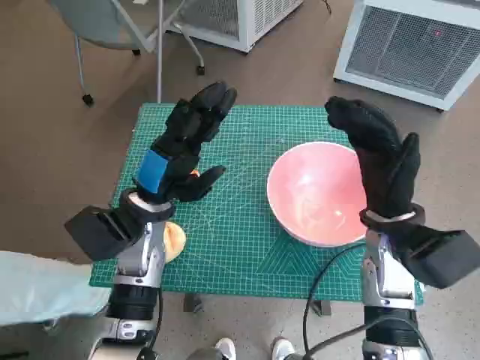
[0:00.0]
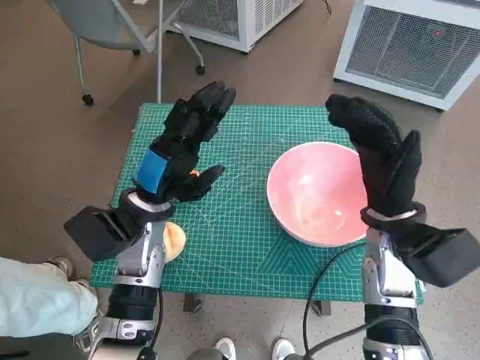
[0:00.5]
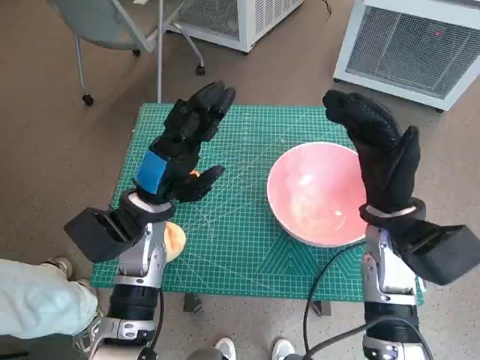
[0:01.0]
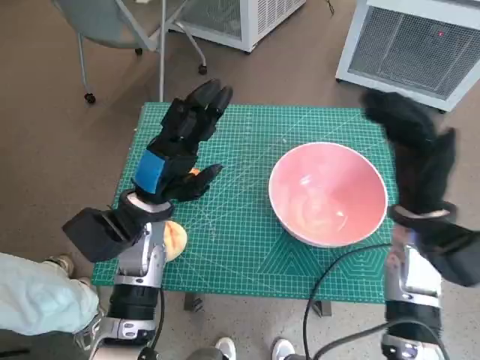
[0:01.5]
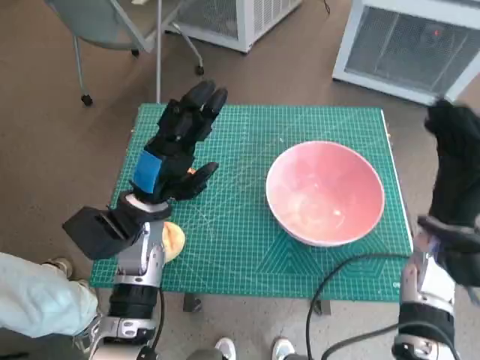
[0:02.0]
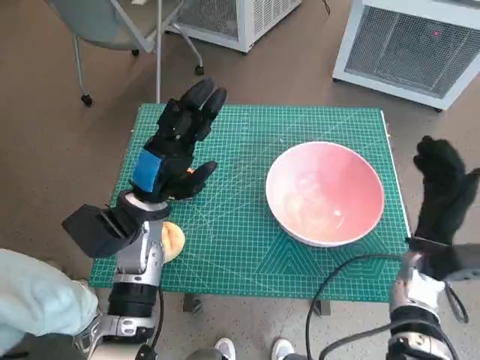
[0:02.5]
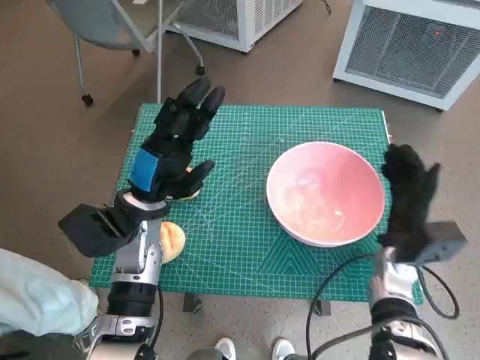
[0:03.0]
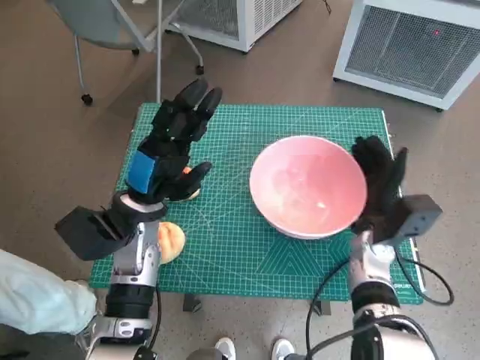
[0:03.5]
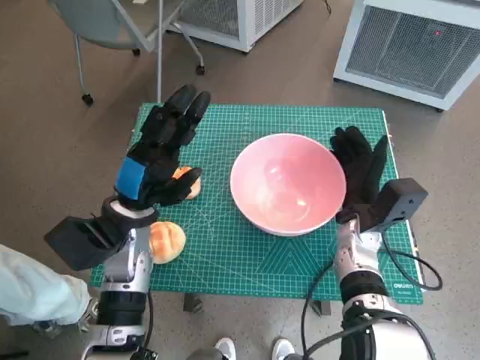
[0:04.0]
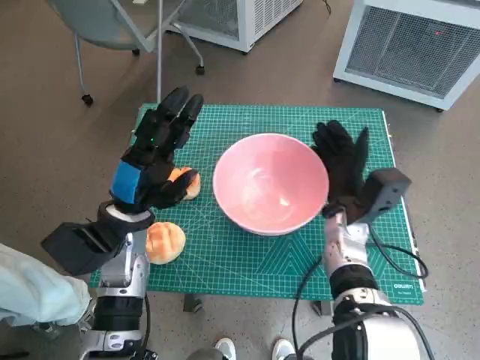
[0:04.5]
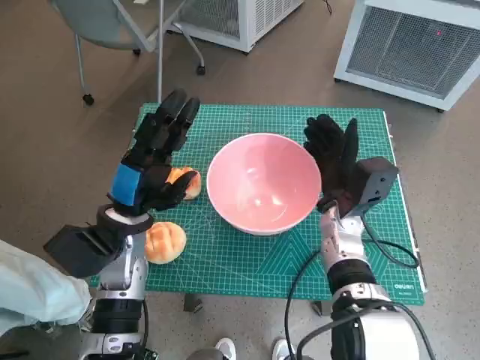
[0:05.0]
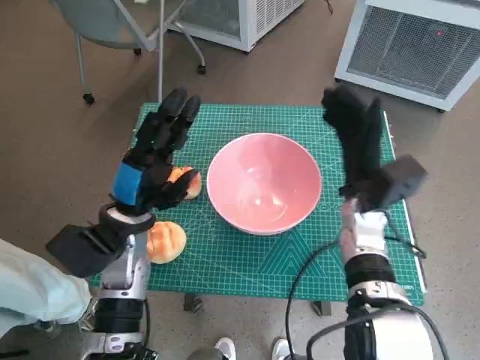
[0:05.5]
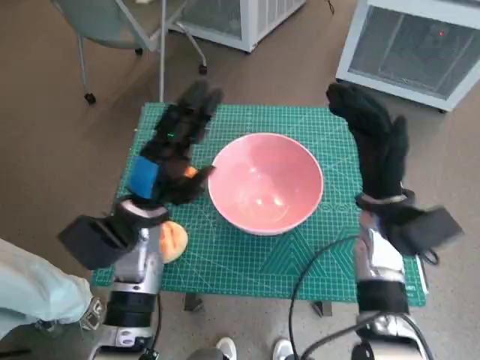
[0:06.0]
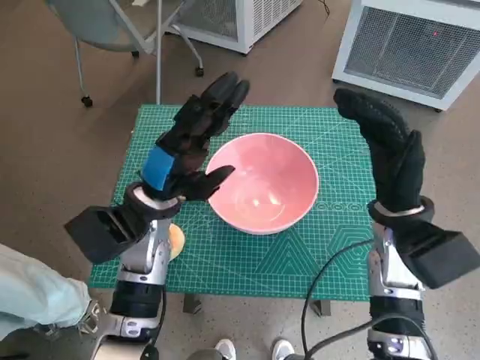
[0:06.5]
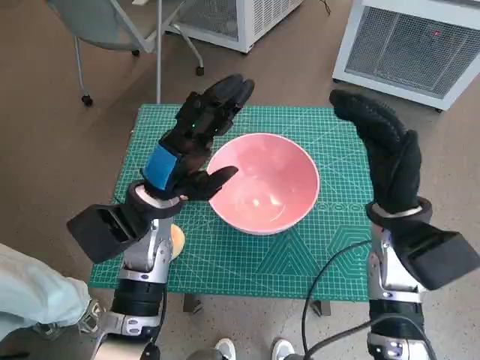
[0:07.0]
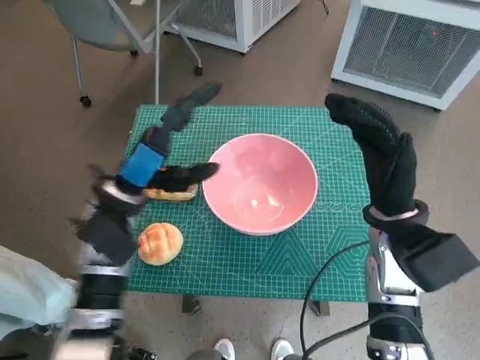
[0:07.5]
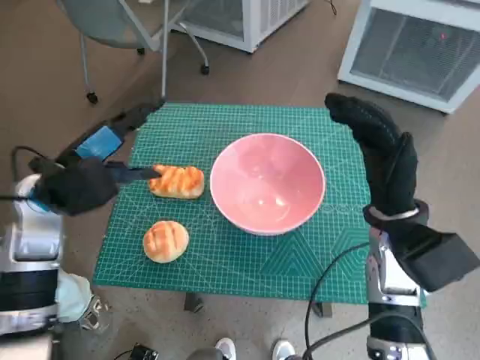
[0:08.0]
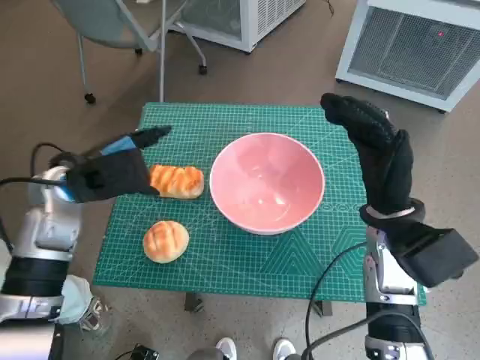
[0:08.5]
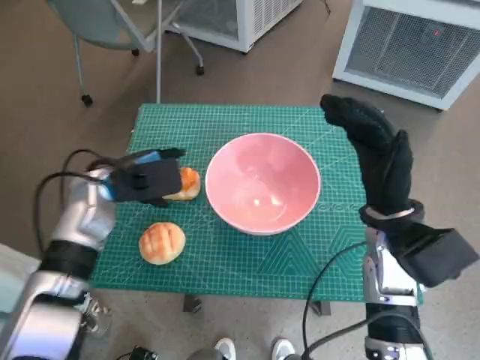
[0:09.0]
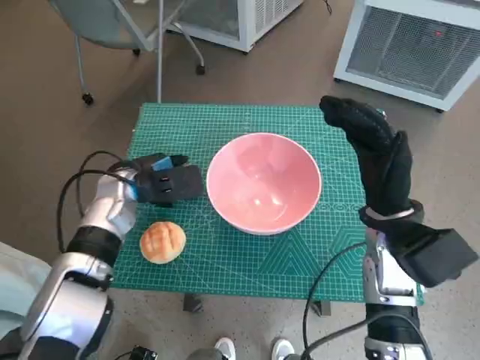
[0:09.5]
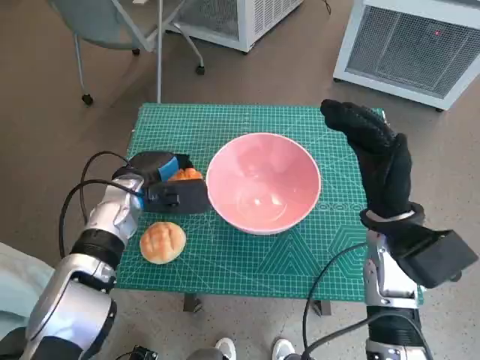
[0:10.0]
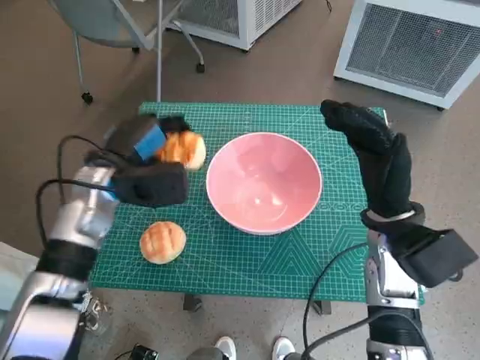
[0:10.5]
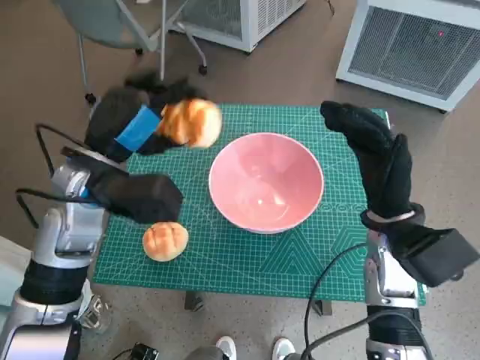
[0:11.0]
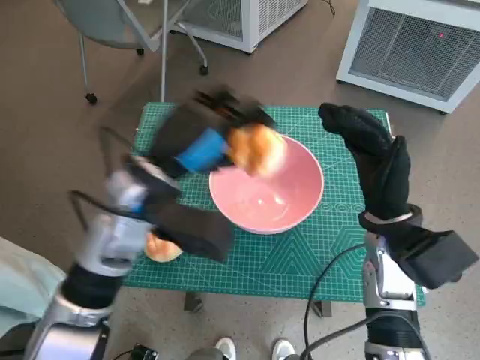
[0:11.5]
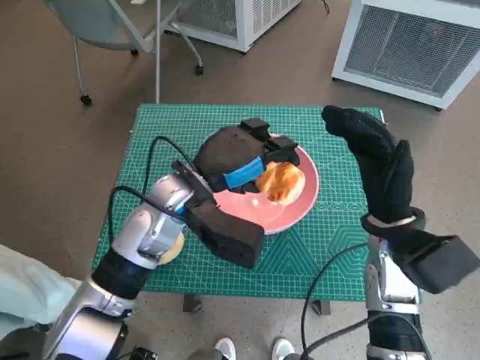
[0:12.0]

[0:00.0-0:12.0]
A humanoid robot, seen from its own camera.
Task of the whole recording: Push the bowl into the center of the table and put the bread into the bowl.
Step, 0:00.0 to 0:05.0: Move the pink bowl to the center of table with right hand.
Step, 0:05.5 to 0:09.5: Grasp the long bread with left hand.
0:02.0 to 0:04.0: The right hand is displaced to the left and downward by roughly 10 cm.
0:04.0 to 0:06.0: The right hand shifts roughly 5 cm upward.
0:06.0 to 0:08.0: The left hand heads to the left and upward, covering about 10 cm.
0:08.0 to 0:10.0: The left hand is displaced downward, to the right and forward by roughly 10 cm.
0:10.0 to 0:12.0: The left hand heads to the right and upward, covering roughly 10 cm.

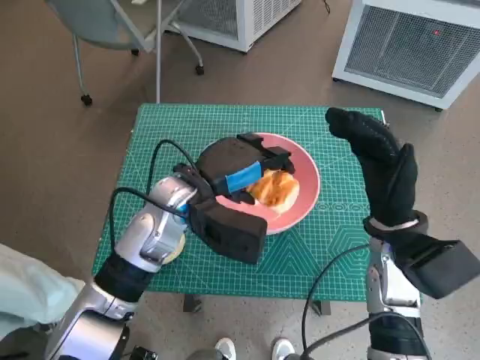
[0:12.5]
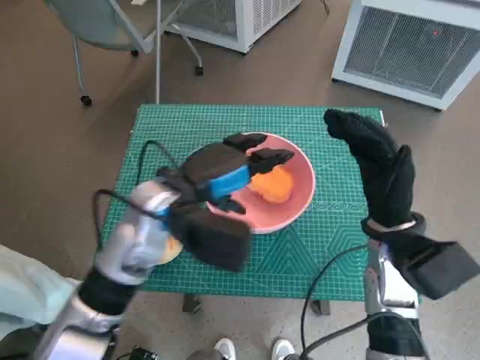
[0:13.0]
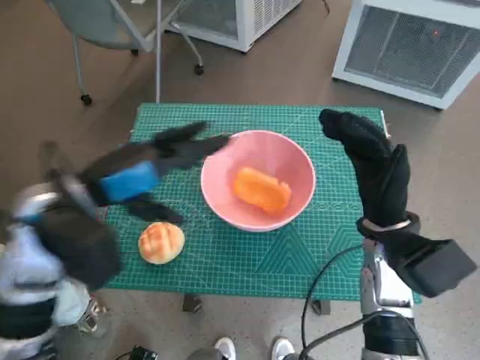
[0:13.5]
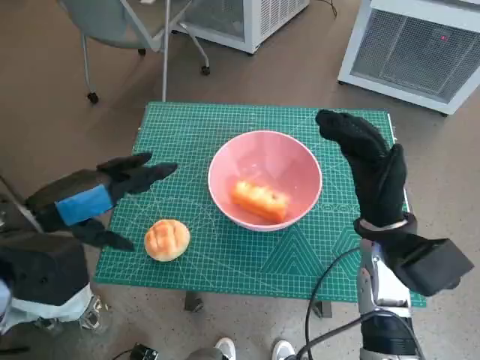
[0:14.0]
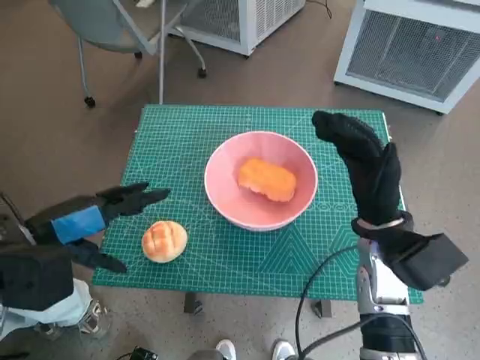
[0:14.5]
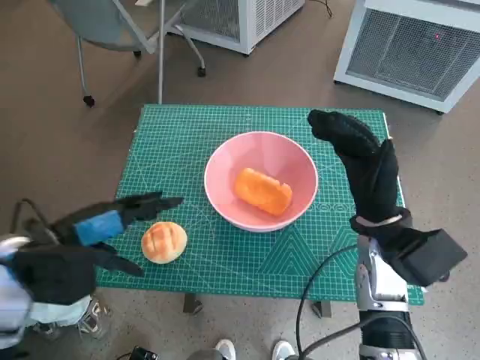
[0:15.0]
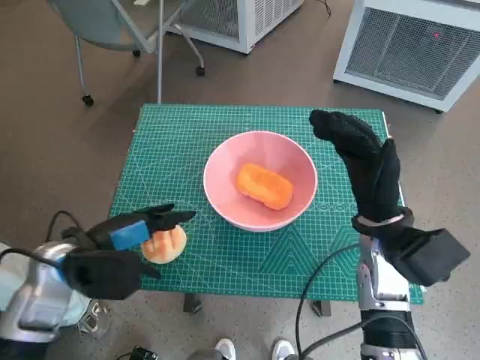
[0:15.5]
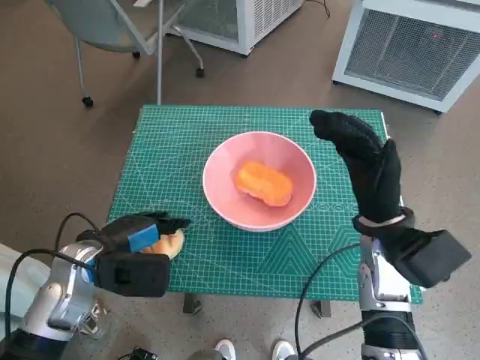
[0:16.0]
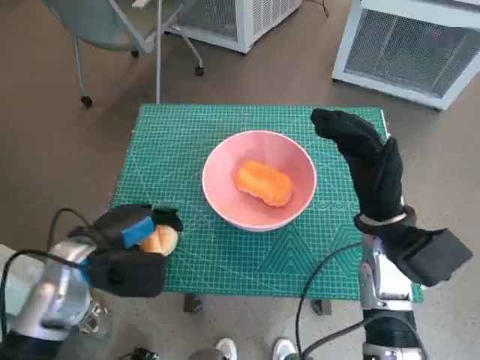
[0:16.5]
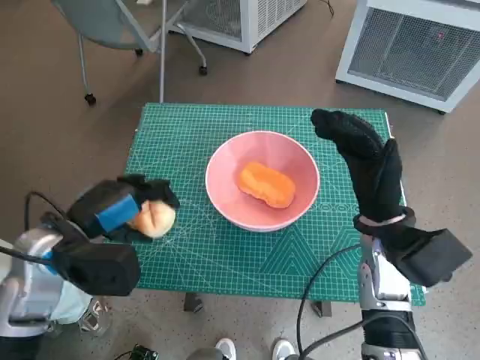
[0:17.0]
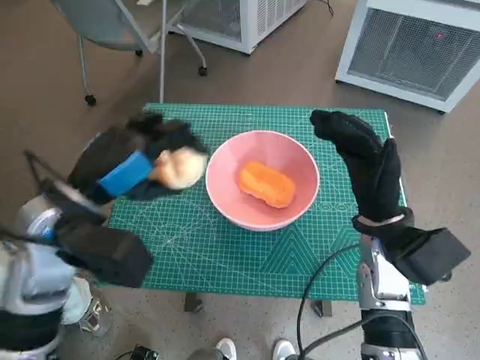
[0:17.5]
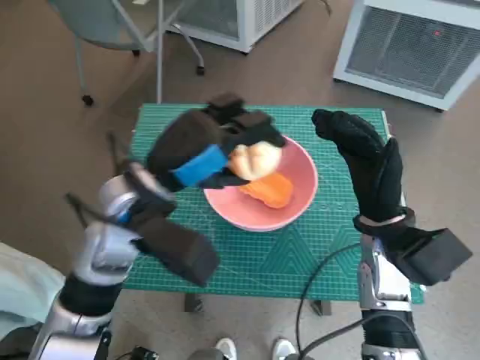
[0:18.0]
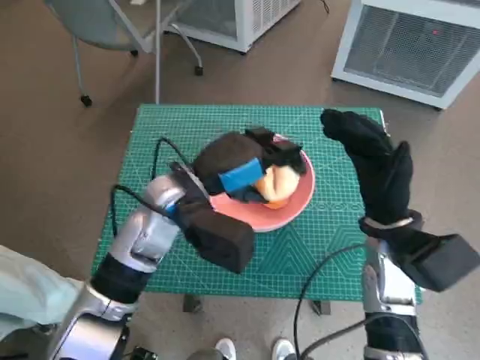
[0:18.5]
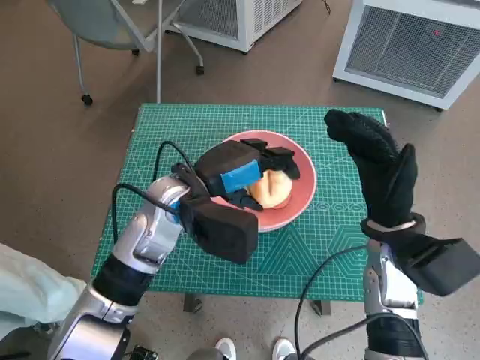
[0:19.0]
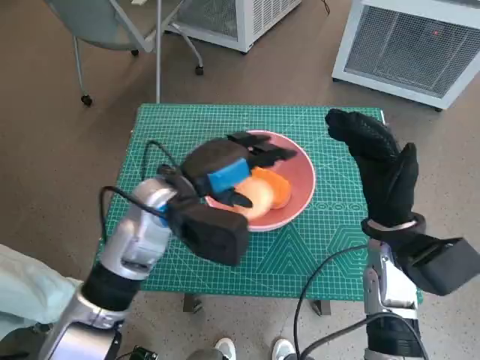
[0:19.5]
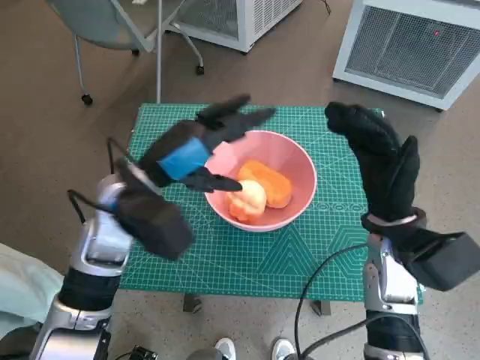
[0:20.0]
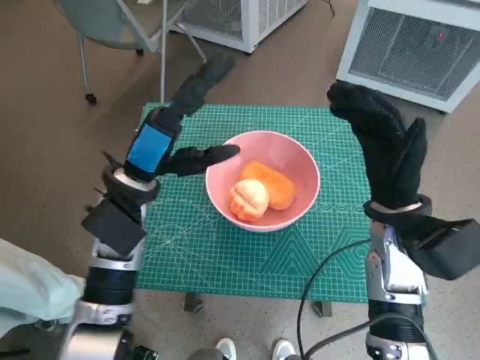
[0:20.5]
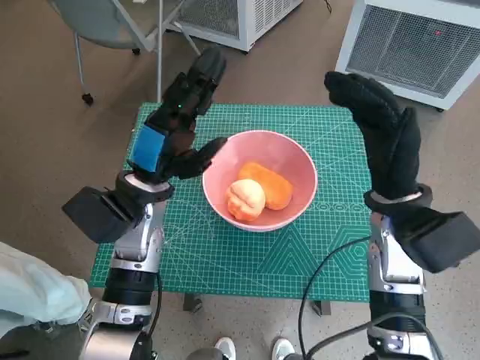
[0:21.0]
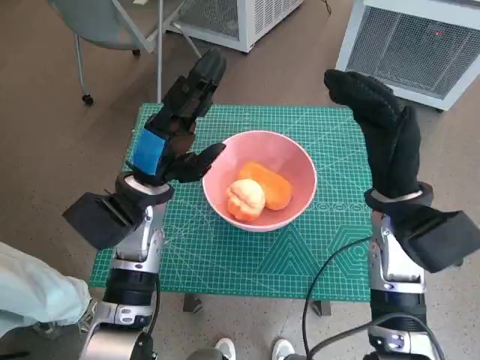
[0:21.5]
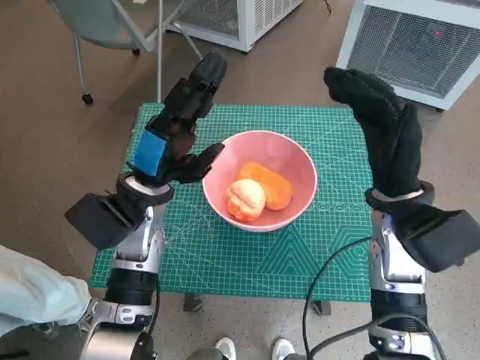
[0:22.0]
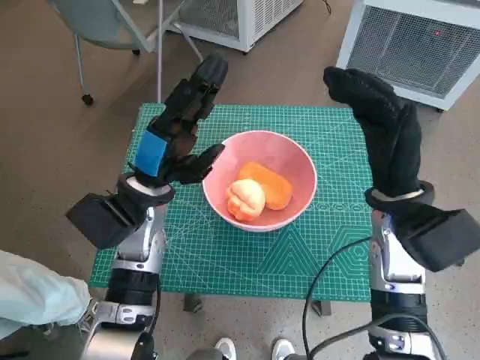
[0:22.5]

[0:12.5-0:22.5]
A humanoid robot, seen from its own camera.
Task of the whole recording: Push the bowl into the center of the table and put the bread into the bowl.
Step, 0:13.0 to 0:16.0: Grasp the round bread with left hand.
Step, 0:16.5 to 0:19.5: Place the round bread in pink bowl with left hand.
0:12.5 to 0:14.5: The left hand shifts some 20 cm to the left and backward.
0:14.5 to 0:16.5: The left hand heads downward, covering some 10 cm.
0:16.5 to 0:18.5: The left hand moves to the right, upward and forward, about 15 cm.
0:18.5 to 0:20.5: The left hand shifts approximately 5 cm to the left.

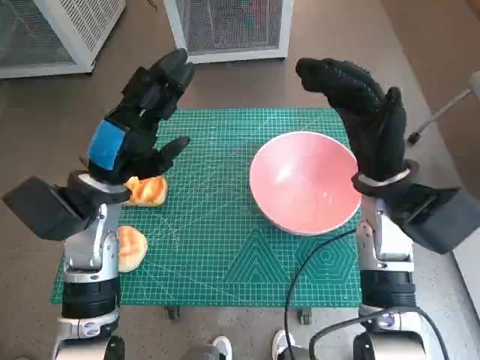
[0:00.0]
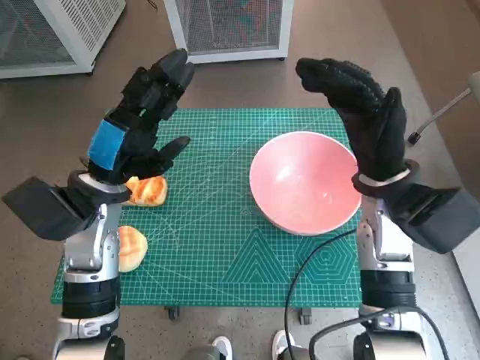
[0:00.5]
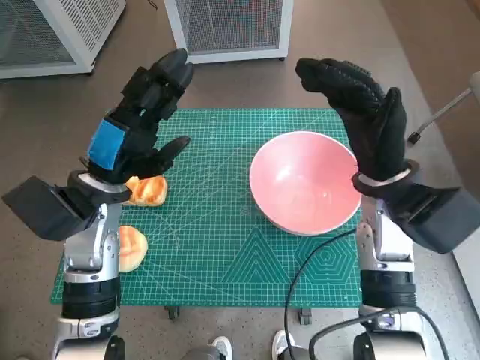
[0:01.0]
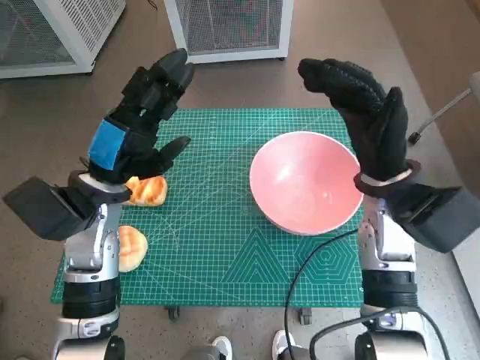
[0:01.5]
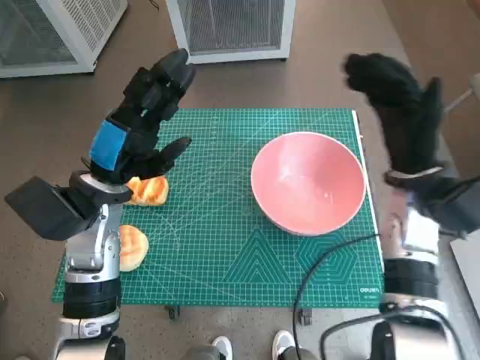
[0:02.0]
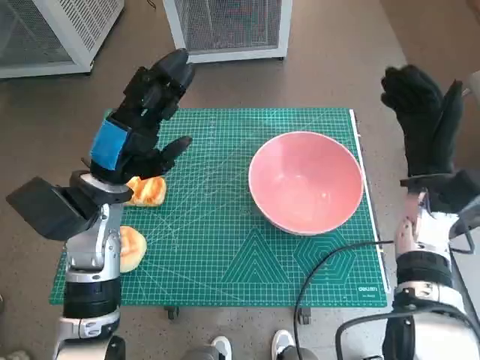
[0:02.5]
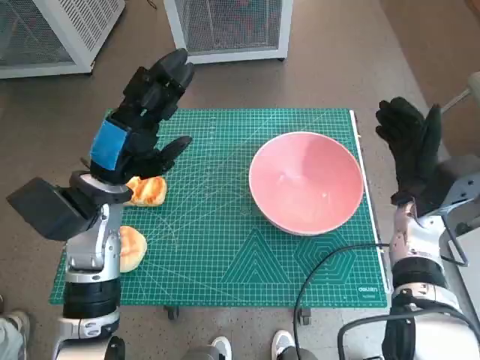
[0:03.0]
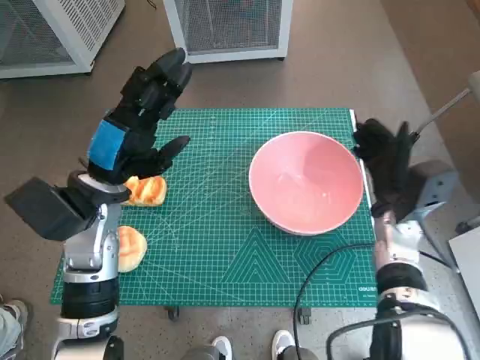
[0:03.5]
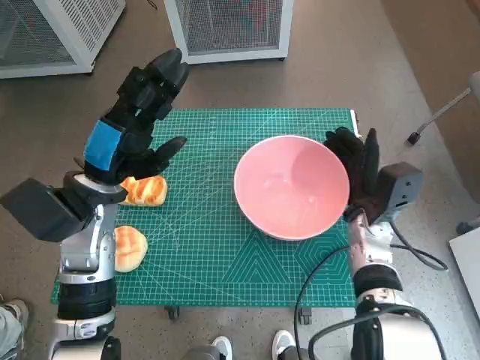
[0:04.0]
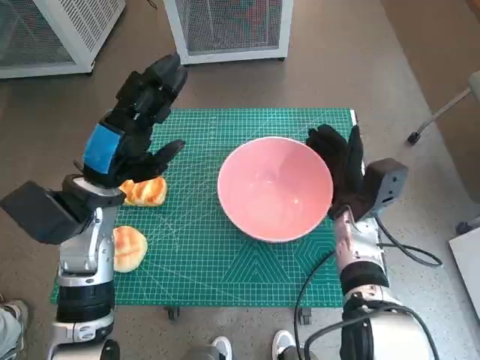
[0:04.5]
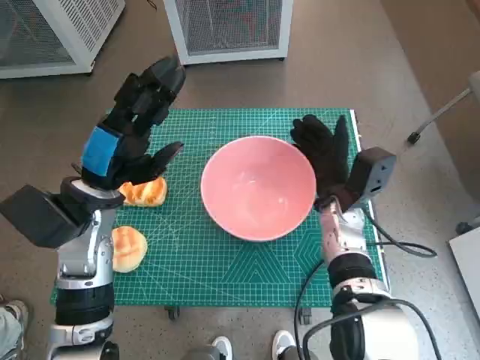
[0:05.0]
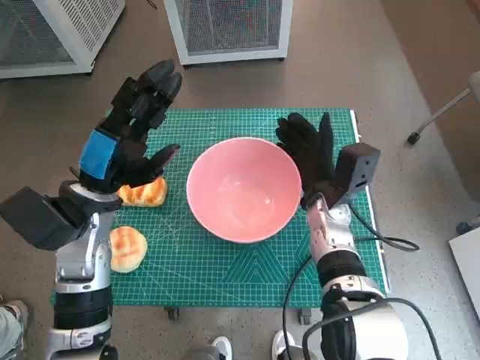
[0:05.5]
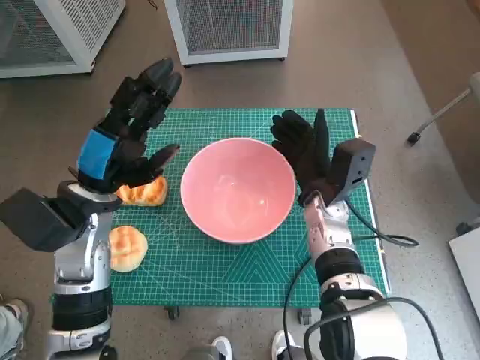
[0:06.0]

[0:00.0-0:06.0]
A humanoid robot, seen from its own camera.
Task of the whole recording: Push the bowl into the center of the table and put the bread into the bowl.
0:02.0 to 0:04.0: The right hand travels downward by approximately 10 cm.
0:04.0 to 0:06.0: The right hand goes roughly 5 cm to the left.
